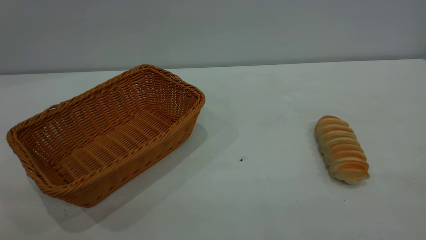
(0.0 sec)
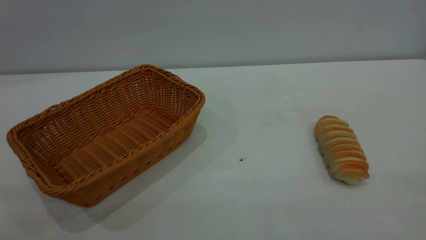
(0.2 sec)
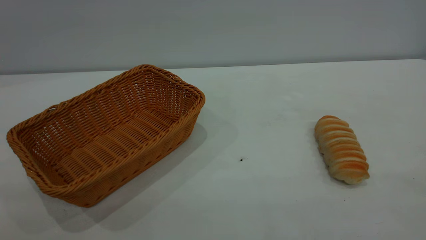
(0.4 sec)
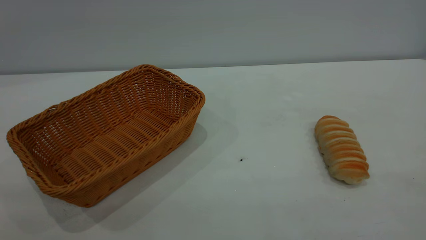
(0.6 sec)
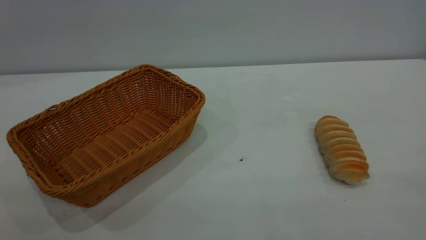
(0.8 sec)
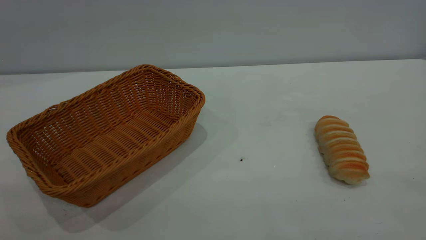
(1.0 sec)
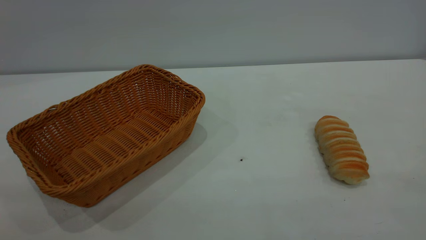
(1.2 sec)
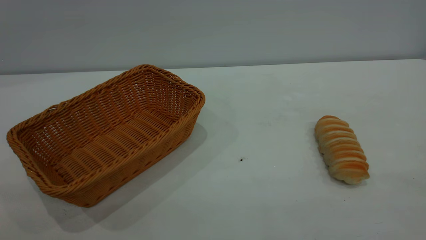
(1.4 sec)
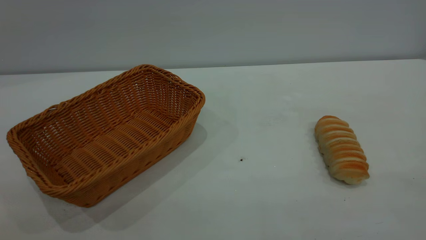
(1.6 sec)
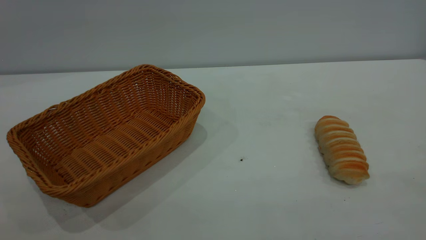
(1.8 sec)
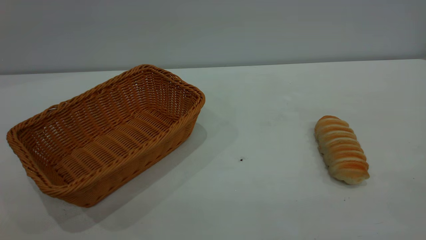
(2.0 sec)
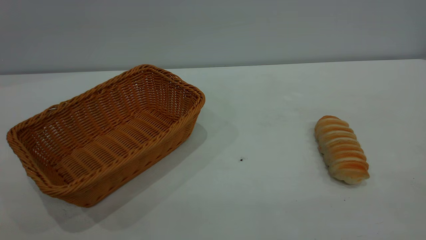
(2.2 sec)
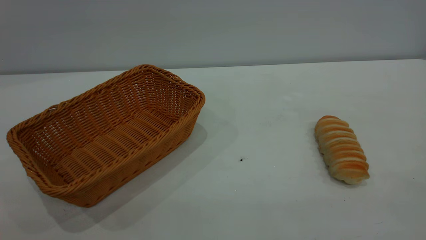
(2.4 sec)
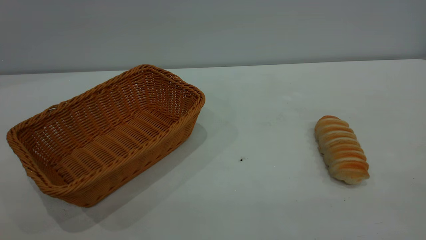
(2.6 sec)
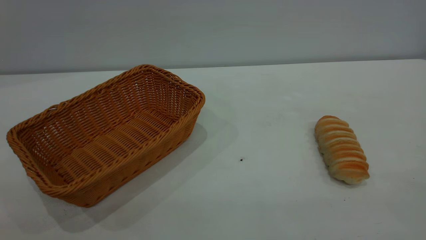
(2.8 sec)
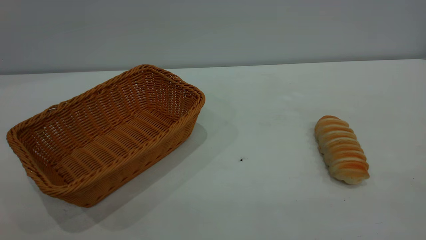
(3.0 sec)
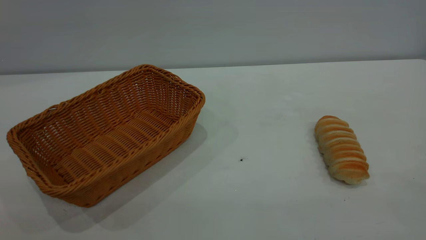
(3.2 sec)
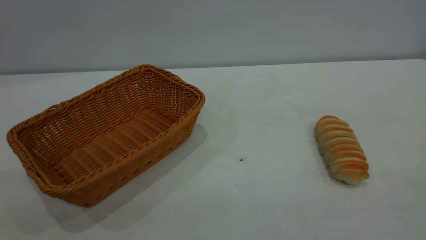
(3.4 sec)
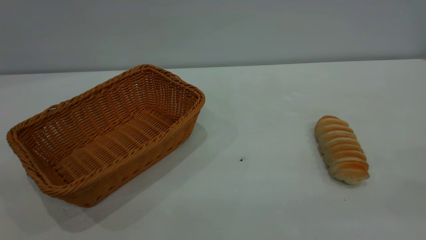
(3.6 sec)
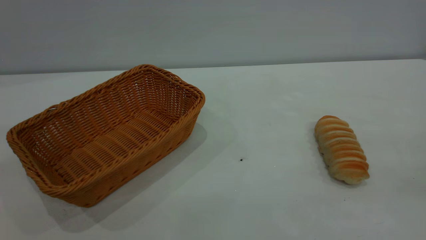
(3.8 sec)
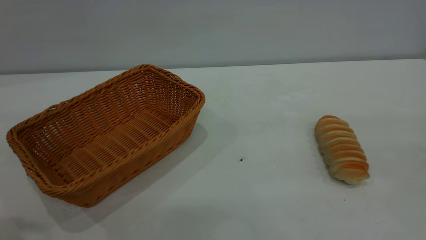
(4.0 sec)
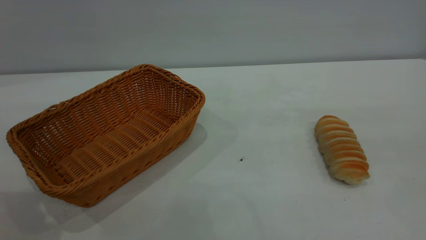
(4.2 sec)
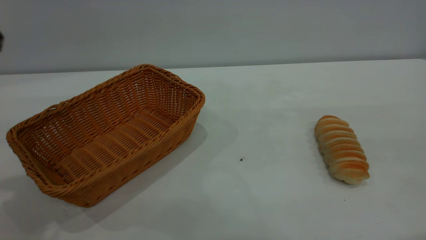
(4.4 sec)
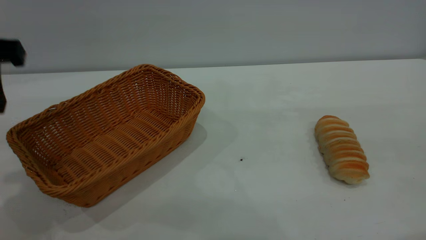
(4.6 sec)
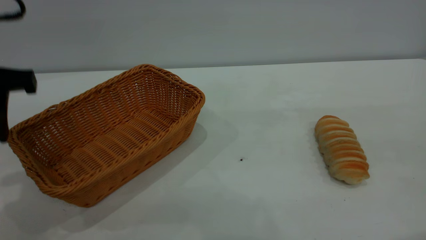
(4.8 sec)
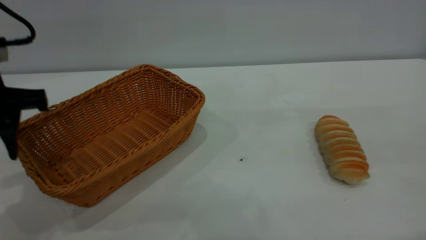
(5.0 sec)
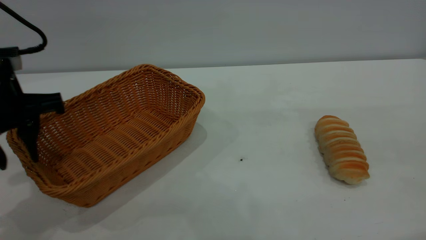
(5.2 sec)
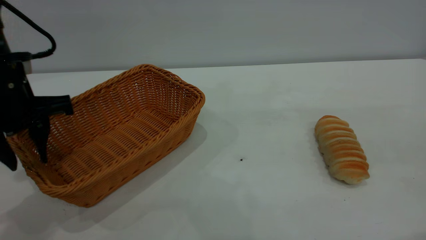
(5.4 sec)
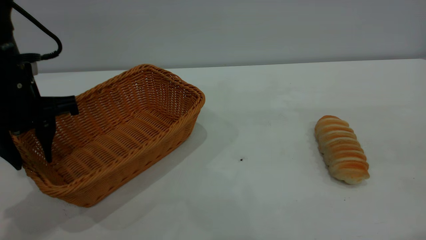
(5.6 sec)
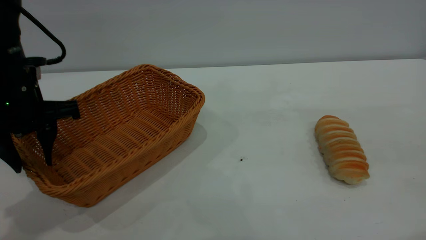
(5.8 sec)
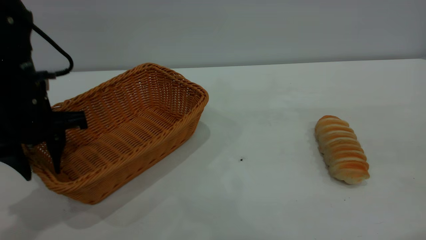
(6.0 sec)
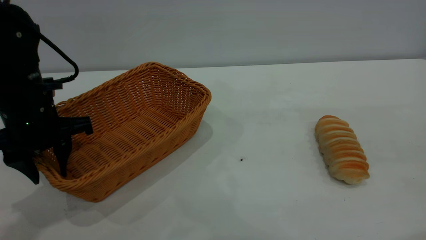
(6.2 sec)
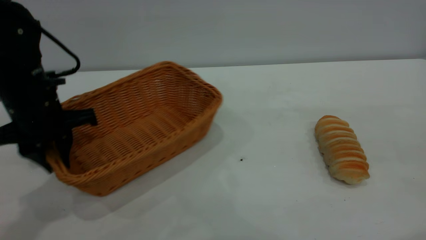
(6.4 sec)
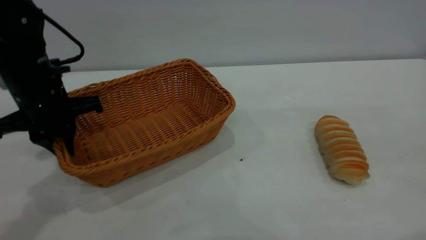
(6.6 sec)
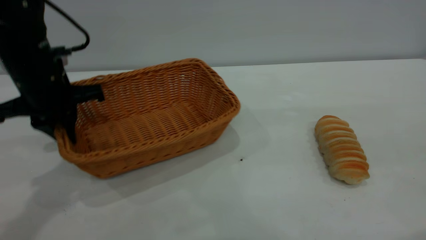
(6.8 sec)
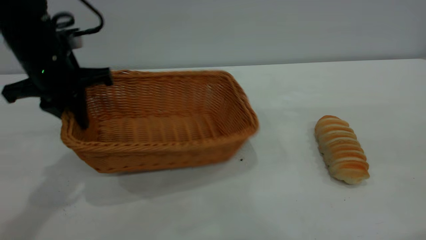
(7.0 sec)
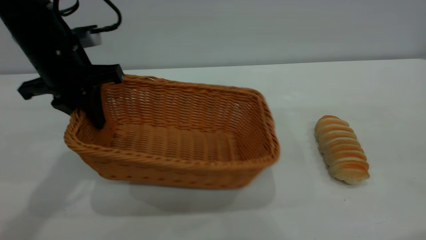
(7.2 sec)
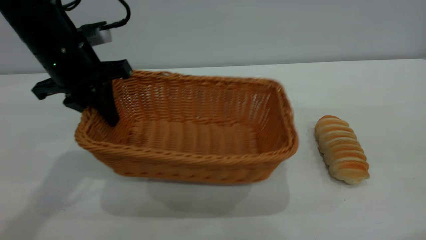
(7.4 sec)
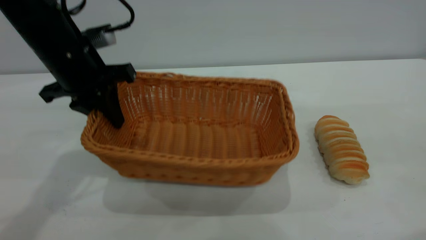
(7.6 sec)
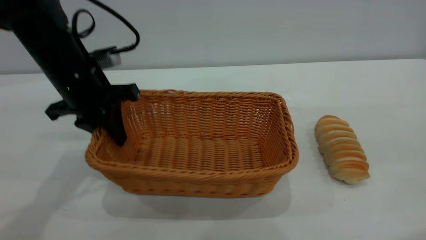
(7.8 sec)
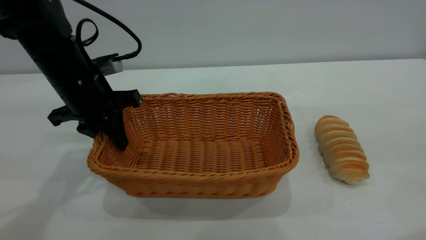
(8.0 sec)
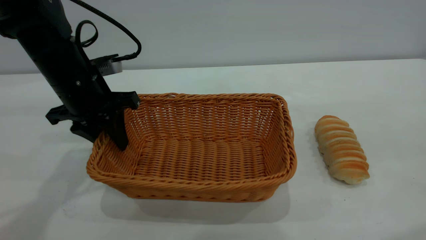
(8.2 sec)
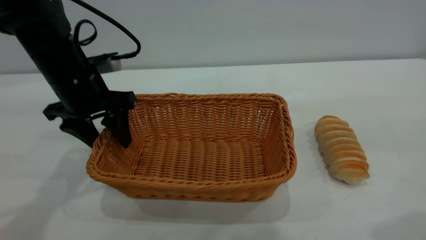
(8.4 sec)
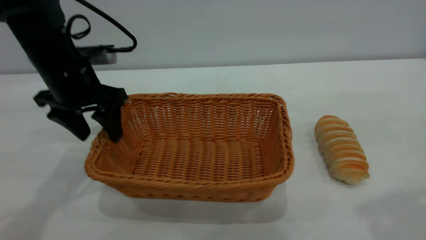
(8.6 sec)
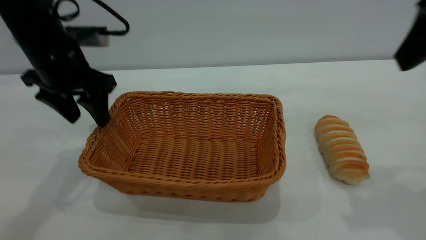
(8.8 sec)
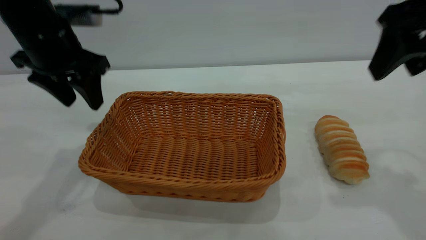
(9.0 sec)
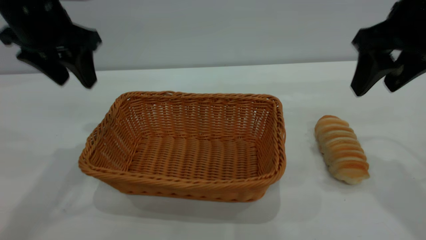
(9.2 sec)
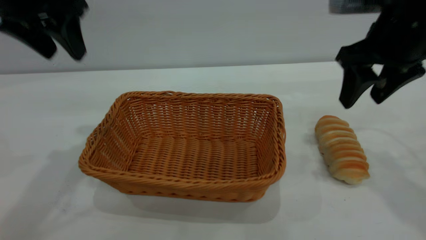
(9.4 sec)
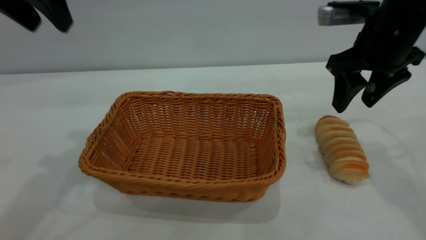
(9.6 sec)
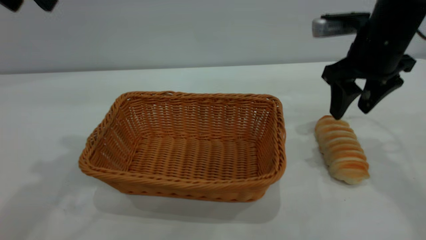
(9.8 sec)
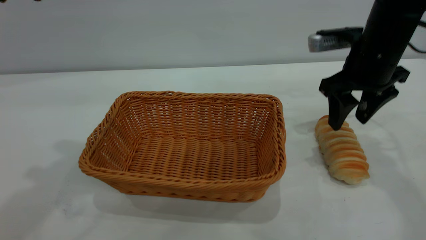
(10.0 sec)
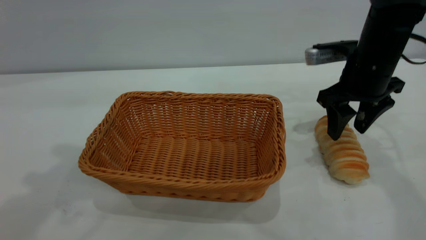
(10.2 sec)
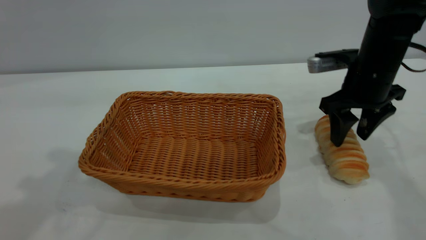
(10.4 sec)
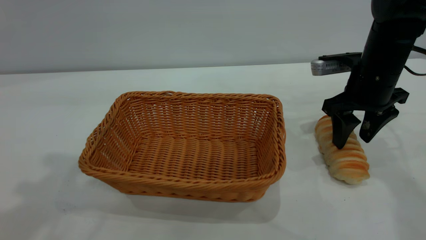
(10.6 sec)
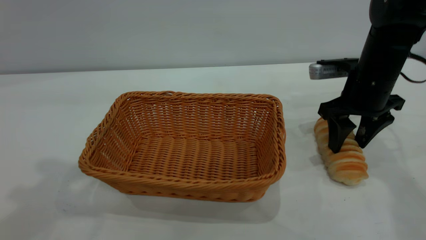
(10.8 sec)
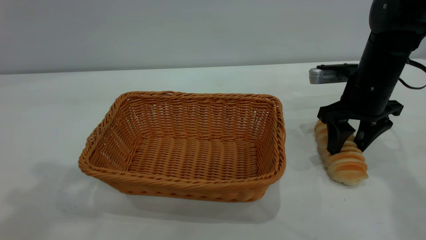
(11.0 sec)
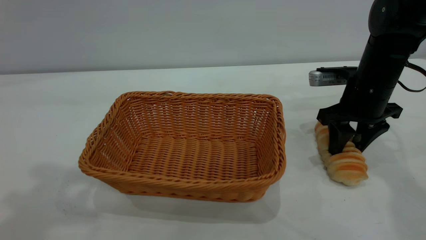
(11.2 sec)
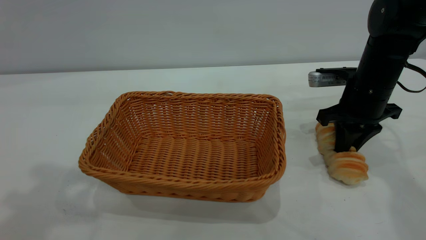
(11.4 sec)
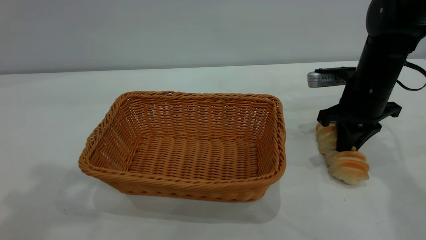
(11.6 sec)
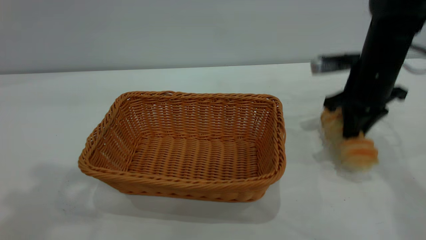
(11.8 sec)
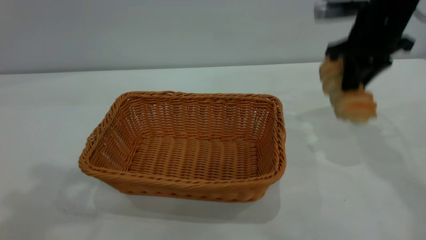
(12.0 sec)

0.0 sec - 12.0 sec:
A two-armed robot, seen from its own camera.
Task of the whole recording: One hand grasps the yellow basket and places it in the middle of the table, while the other hand picks up the long bread and puts it into the yellow basket.
Step, 0.0 sec - 8.8 sec: Move the basket to the center of view.
4.4 sec - 6.0 sec: The left gripper travels downward and forward by approximately 15 cm.
6.0 sec - 7.6 sec: The left gripper shifts about 5 cm forward, and closes up.
7.6 sec - 9.0 sec: The right gripper goes approximately 15 cm forward and downward, and opens up, while the left gripper heads upward, covering about 5 cm, and opens.
9.0 sec - 10.4 sec: The left gripper travels upward and backward by roughly 20 cm; the right gripper travels downward and forward by roughly 20 cm.
10.4 sec - 12.0 sec: The right gripper shifts approximately 10 cm upward, and closes.

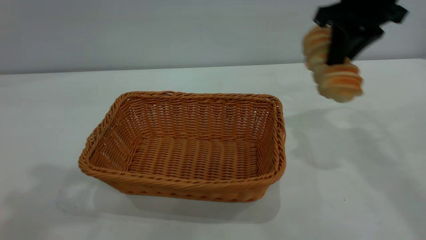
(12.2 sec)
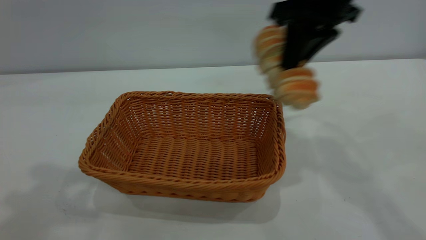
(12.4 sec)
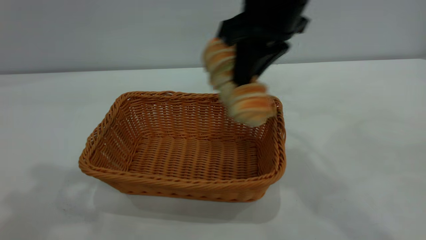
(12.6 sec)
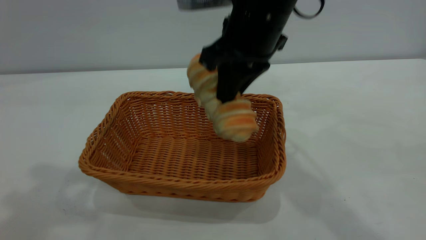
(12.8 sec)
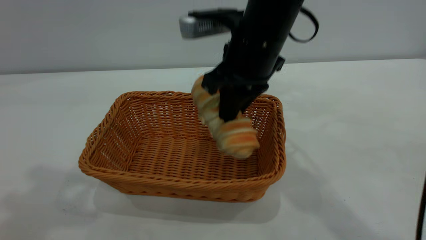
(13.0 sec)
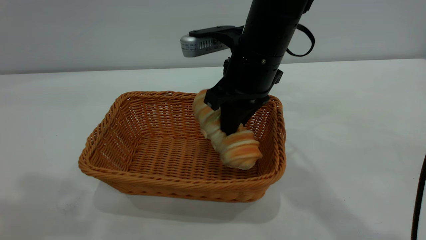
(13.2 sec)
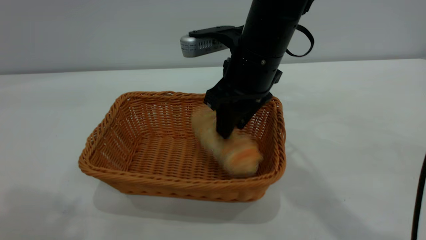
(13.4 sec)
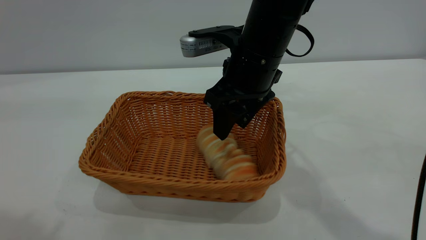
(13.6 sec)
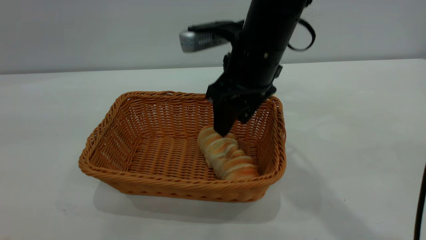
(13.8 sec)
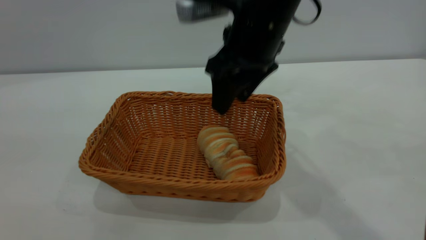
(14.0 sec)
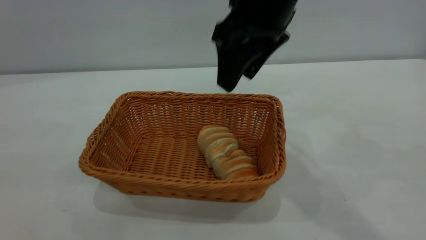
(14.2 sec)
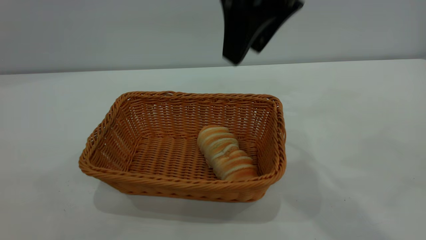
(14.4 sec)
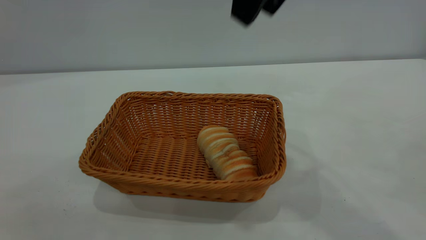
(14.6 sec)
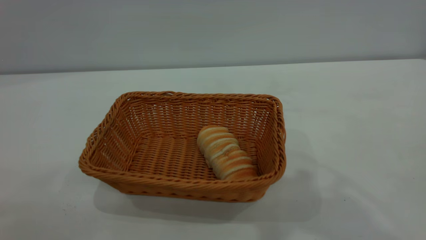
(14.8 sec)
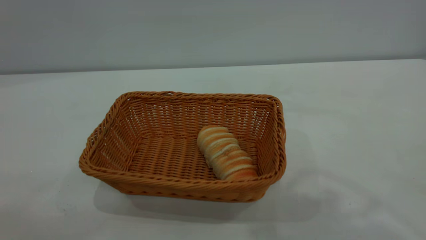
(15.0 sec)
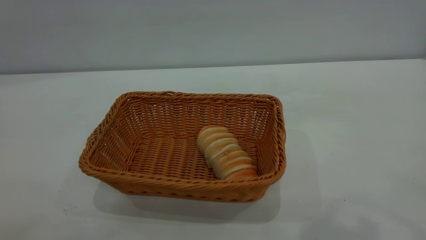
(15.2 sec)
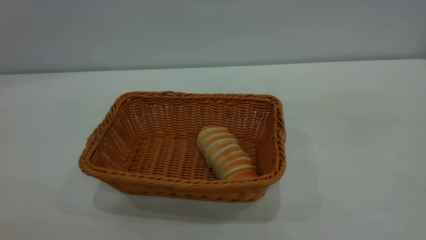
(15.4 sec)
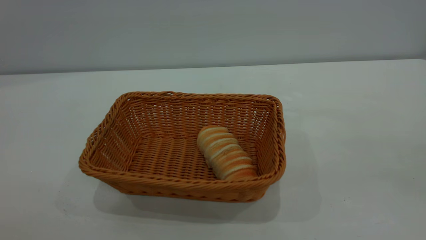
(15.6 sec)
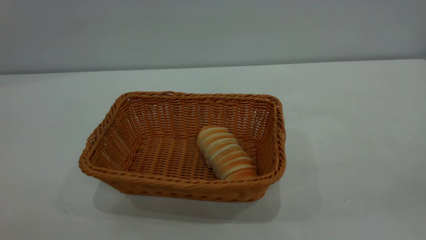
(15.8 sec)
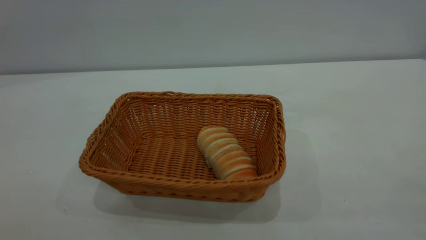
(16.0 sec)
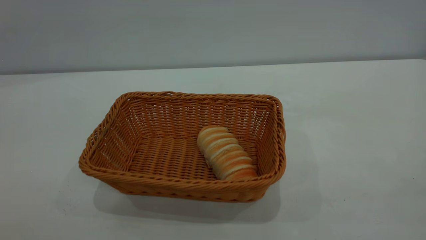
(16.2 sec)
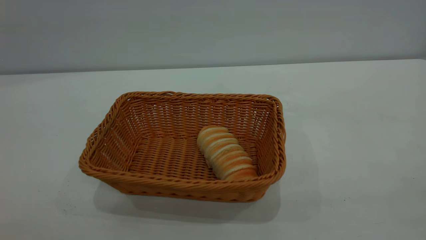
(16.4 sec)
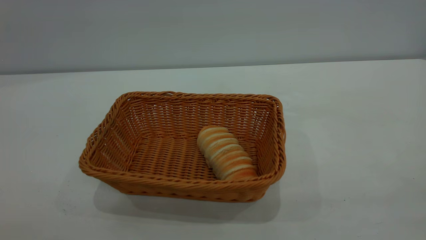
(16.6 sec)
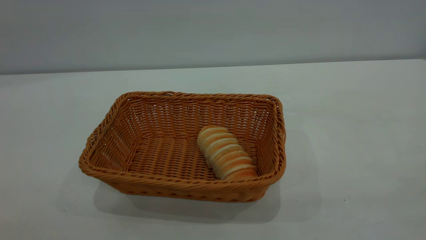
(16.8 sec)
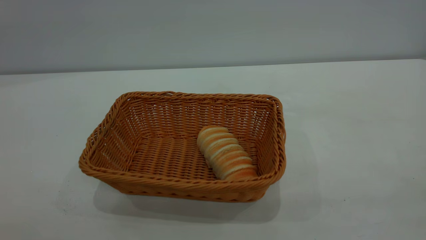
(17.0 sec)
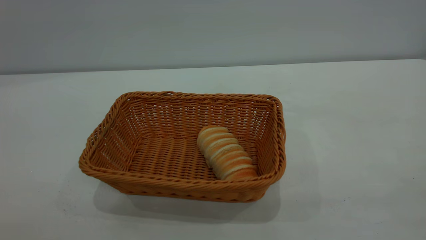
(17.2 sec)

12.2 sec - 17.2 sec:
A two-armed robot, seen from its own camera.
Task of the whole recording: One hand grasps the yellow basket and places it in the middle of the table, while the other hand picks up the long bread and puts it into the yellow basket.
Step, 12.2 sec - 14.2 sec: place the bread into the basket.
12.2 sec - 13.8 sec: The right gripper moves to the left and downward, some 15 cm, and opens up. The left gripper goes roughly 15 cm backward.
13.8 sec - 15.6 sec: The left gripper is displaced backward and downward by roughly 20 cm. The right gripper heads backward, upward and to the right, covering approximately 40 cm.
